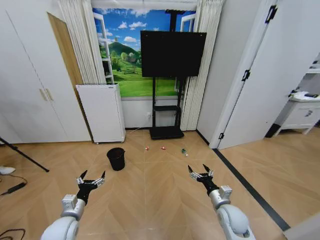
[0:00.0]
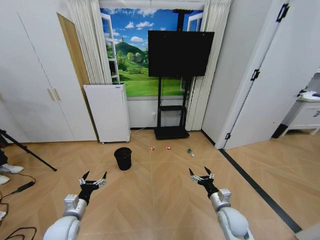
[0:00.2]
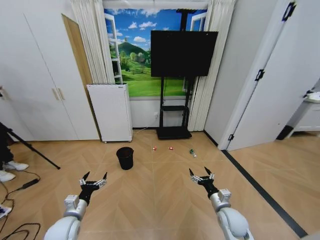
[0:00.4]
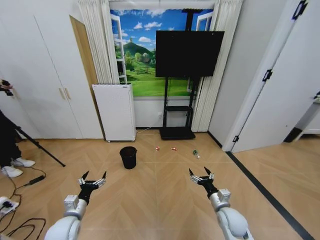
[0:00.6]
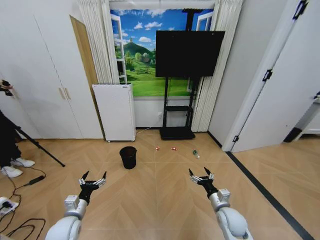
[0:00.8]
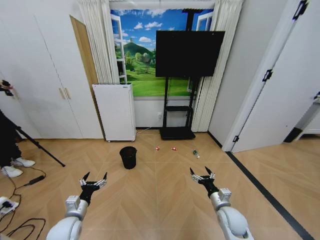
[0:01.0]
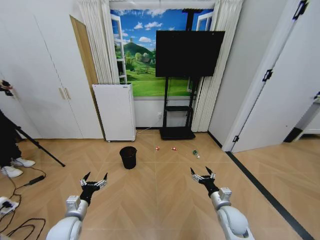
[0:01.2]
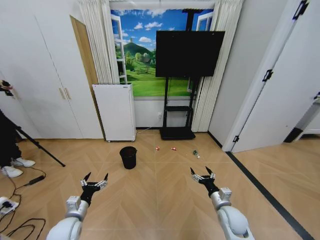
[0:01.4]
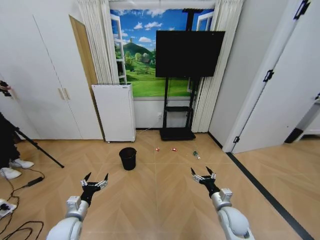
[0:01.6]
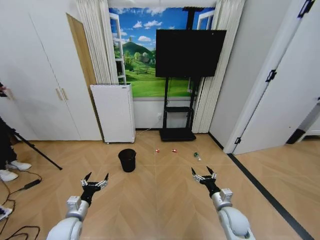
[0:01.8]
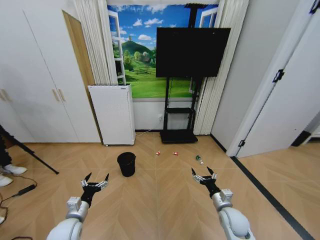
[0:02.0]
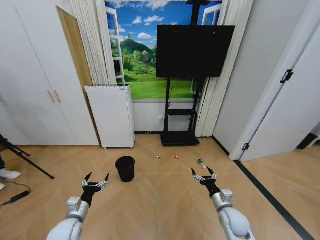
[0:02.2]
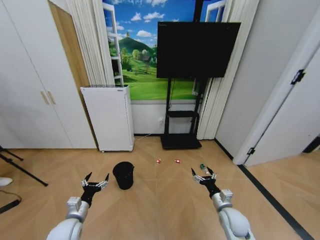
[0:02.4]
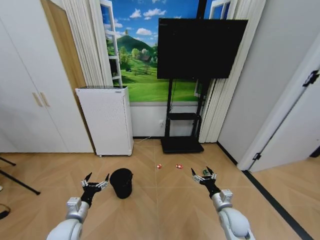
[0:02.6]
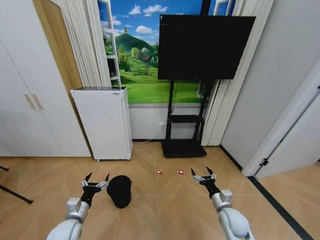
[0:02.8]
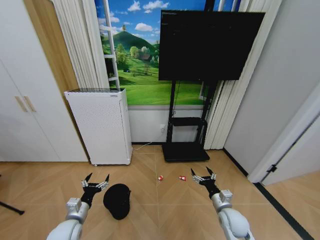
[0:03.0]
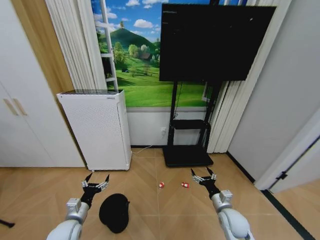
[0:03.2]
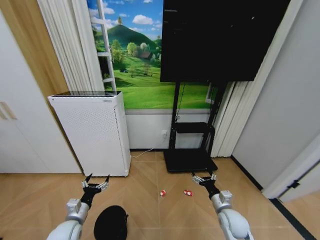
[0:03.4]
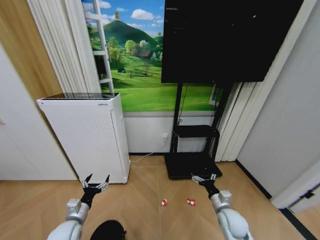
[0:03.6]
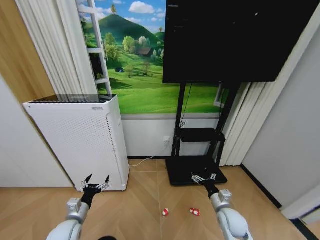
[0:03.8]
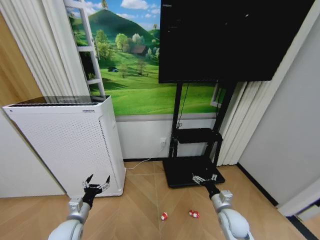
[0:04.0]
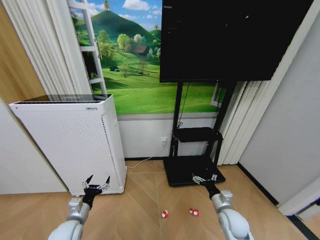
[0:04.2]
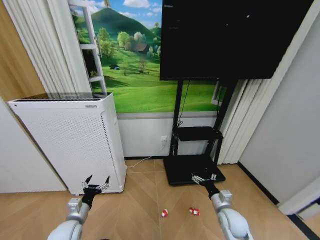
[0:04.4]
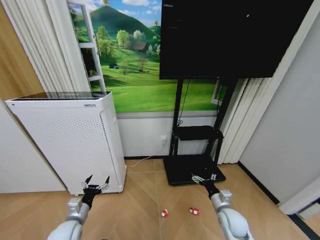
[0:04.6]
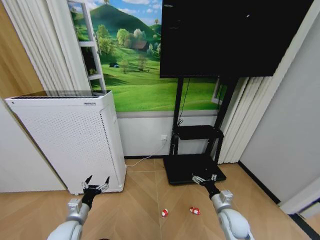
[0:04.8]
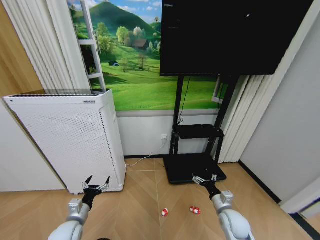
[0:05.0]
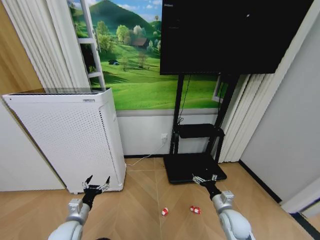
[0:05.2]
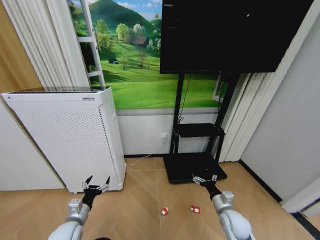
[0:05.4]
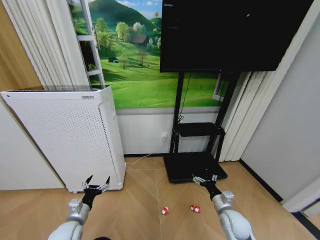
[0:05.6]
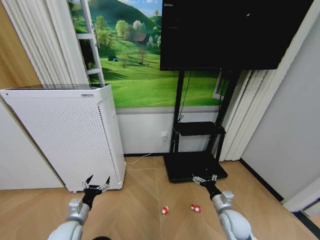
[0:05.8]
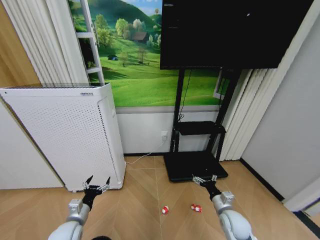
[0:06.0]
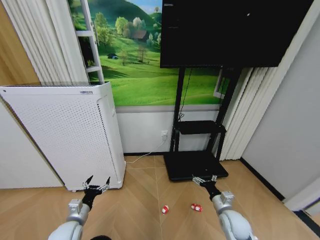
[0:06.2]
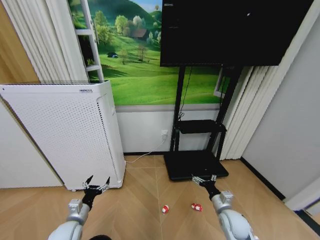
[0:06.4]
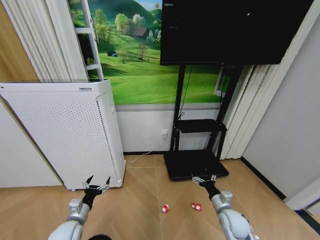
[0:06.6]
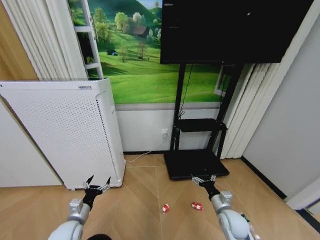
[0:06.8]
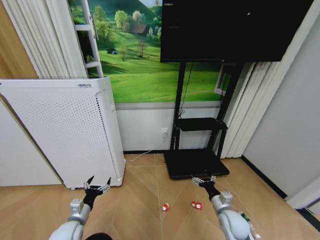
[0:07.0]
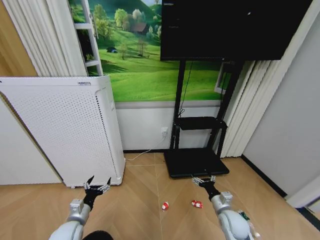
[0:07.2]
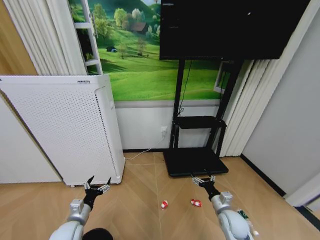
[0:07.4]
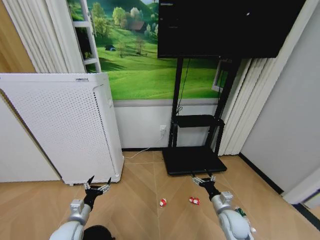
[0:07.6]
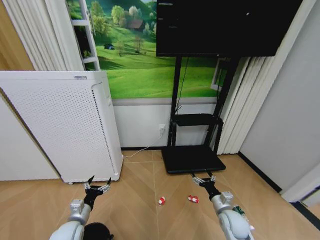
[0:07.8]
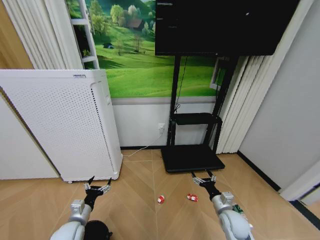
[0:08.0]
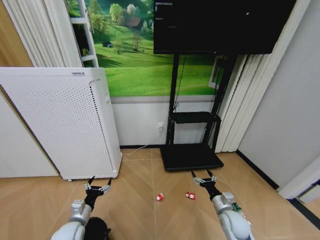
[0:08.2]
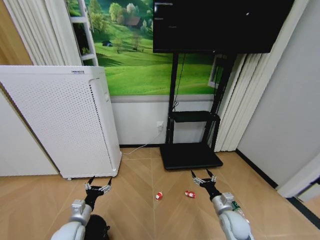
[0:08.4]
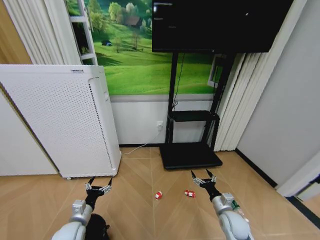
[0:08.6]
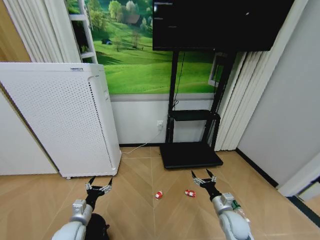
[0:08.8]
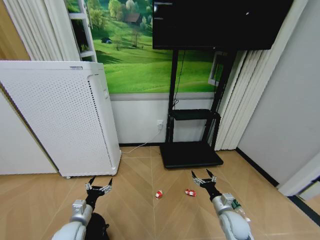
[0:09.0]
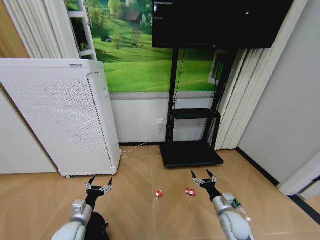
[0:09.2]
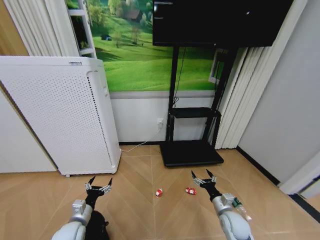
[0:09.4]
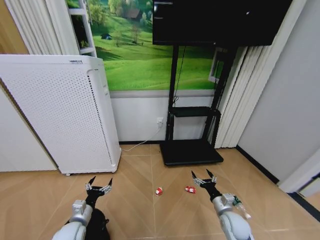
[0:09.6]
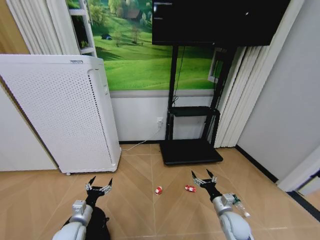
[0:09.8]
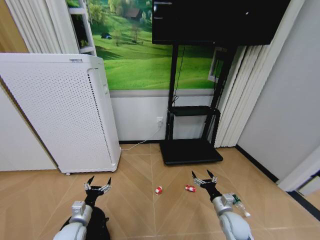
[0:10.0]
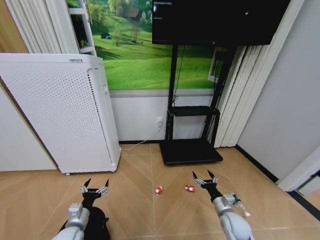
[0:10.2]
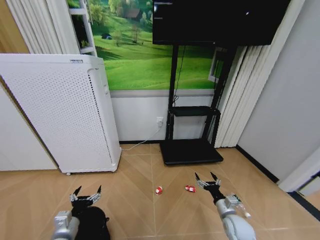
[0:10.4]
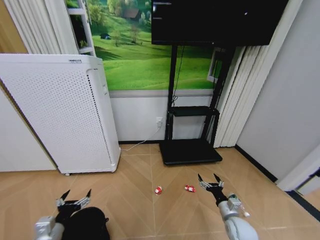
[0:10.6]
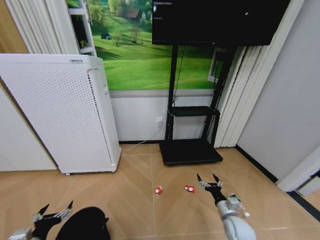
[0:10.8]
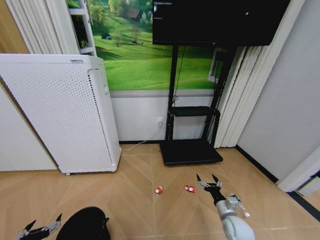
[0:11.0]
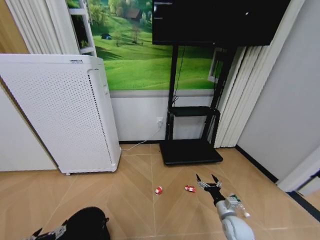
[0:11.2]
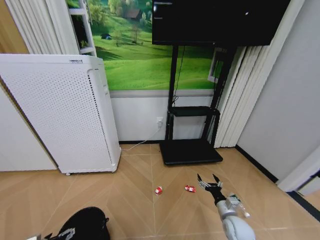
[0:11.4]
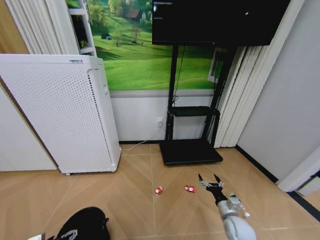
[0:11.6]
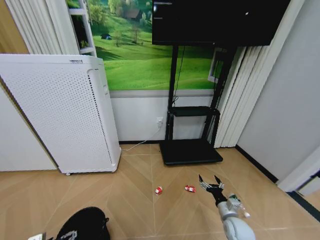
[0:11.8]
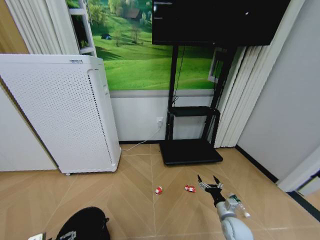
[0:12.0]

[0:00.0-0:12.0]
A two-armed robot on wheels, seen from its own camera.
Task of the whole recording: Pick up the trash bin and place the garbage on the floor into it.
0:04.4 to 0:06.0: Both grippers stay put.
0:09.0 to 0:10.4: The left gripper shifts some 5 cm backward.
0:10.4 to 0:12.0: The left gripper moves to the left, approximately 5 cm.

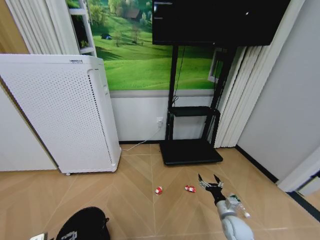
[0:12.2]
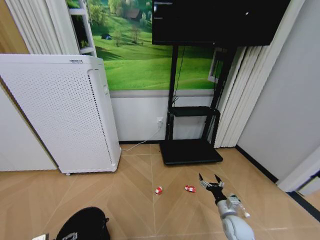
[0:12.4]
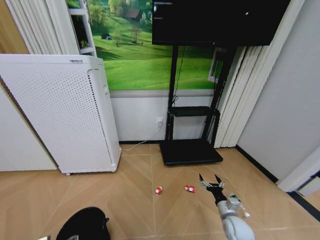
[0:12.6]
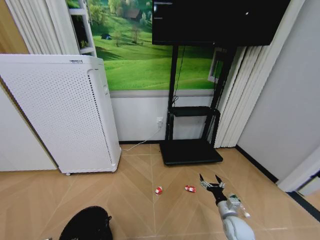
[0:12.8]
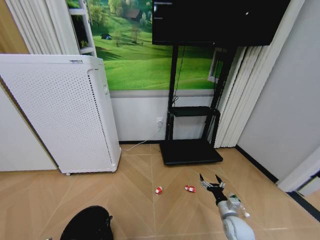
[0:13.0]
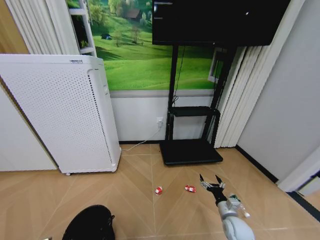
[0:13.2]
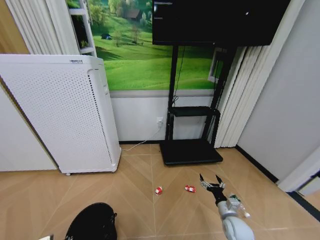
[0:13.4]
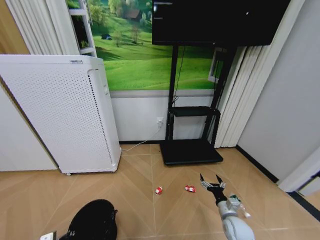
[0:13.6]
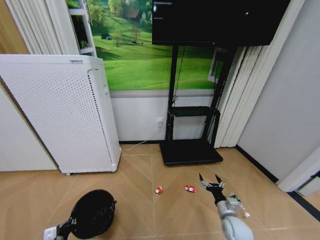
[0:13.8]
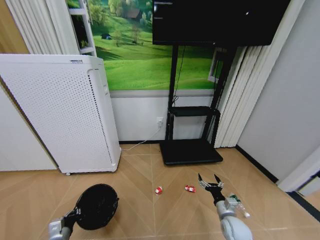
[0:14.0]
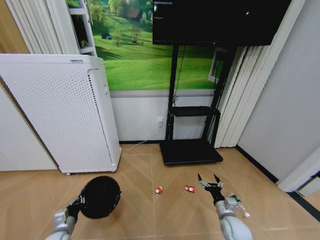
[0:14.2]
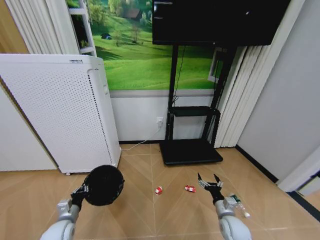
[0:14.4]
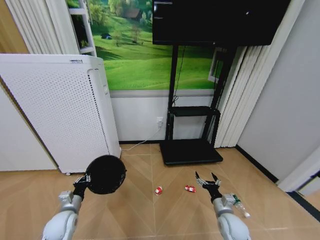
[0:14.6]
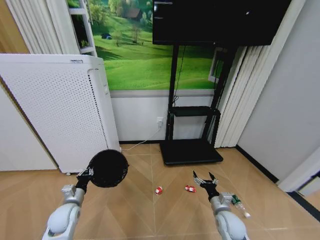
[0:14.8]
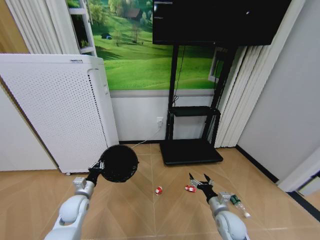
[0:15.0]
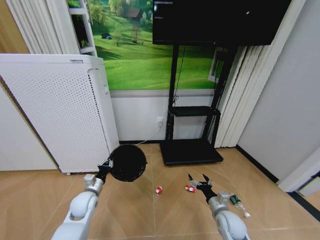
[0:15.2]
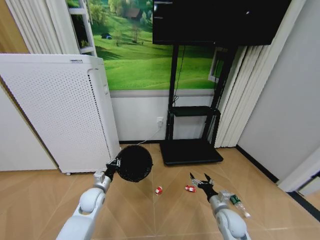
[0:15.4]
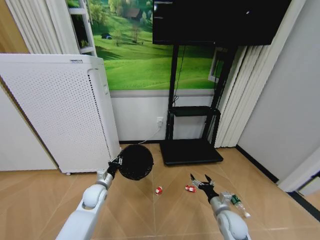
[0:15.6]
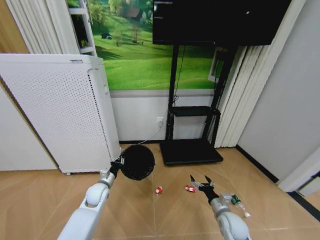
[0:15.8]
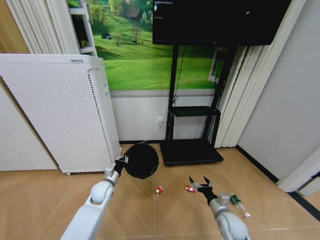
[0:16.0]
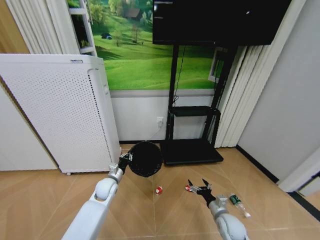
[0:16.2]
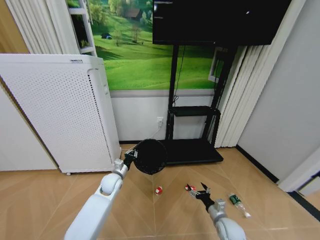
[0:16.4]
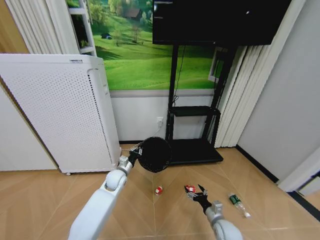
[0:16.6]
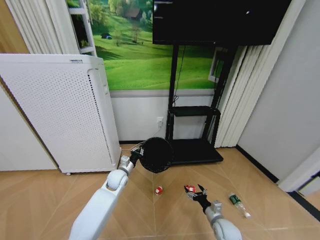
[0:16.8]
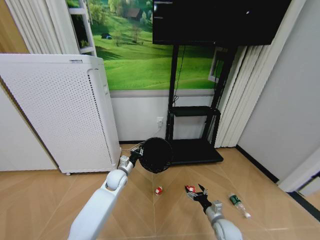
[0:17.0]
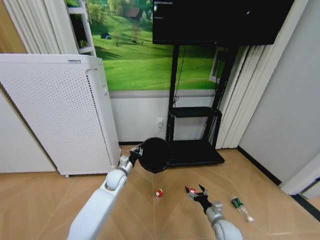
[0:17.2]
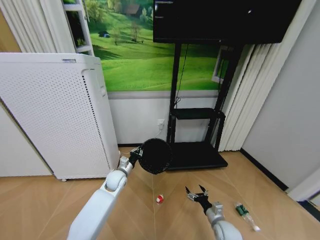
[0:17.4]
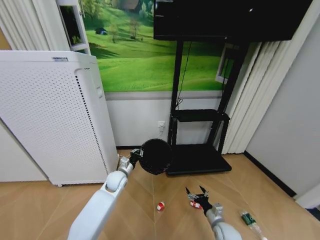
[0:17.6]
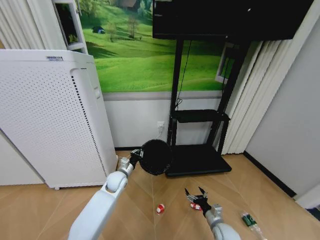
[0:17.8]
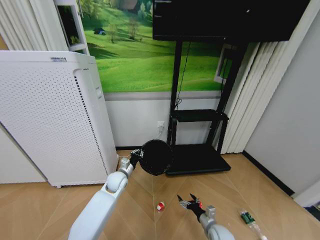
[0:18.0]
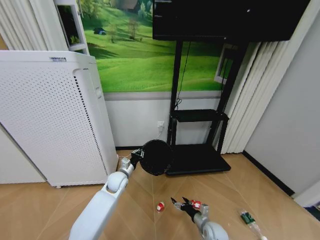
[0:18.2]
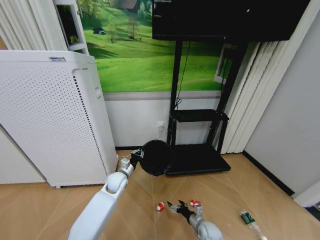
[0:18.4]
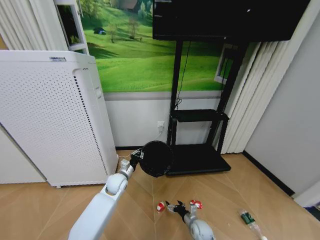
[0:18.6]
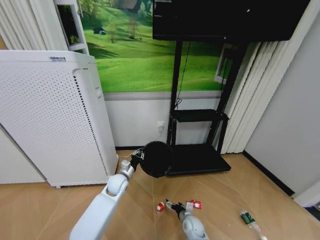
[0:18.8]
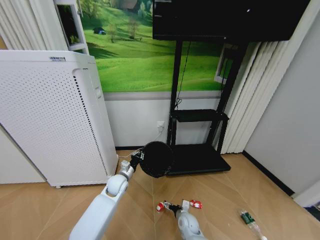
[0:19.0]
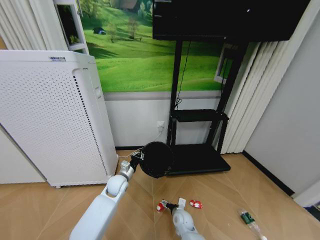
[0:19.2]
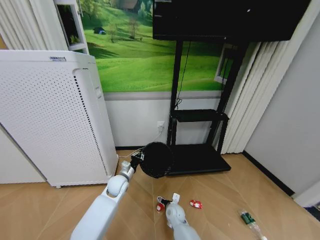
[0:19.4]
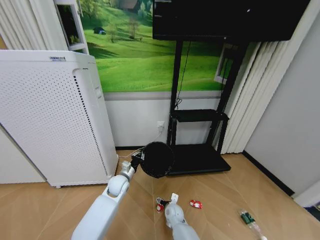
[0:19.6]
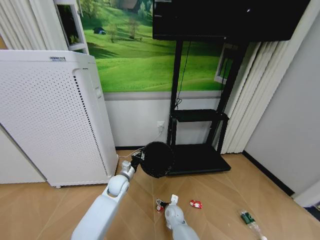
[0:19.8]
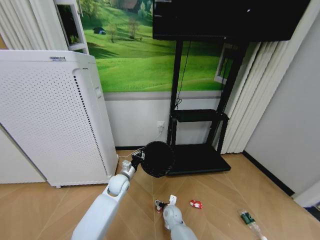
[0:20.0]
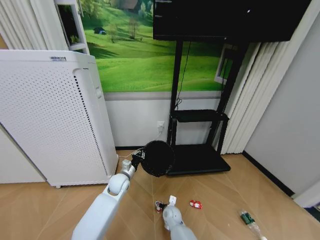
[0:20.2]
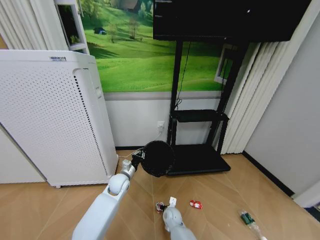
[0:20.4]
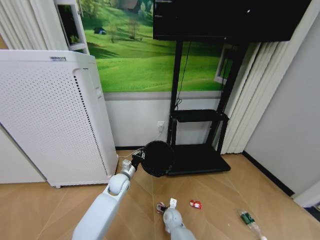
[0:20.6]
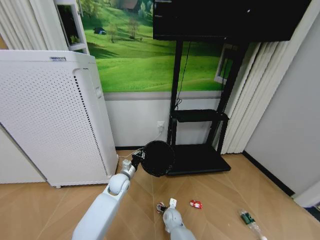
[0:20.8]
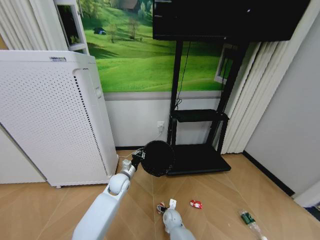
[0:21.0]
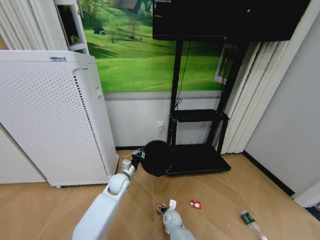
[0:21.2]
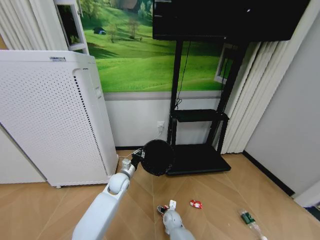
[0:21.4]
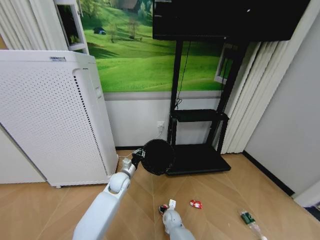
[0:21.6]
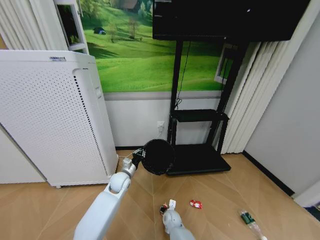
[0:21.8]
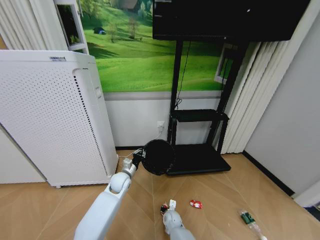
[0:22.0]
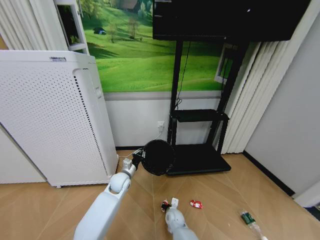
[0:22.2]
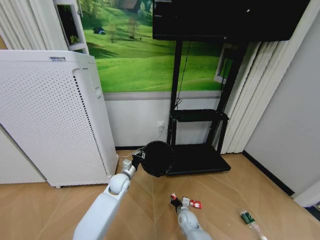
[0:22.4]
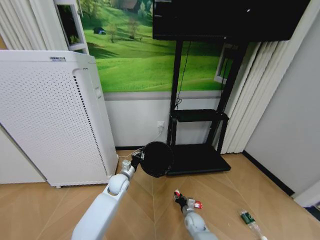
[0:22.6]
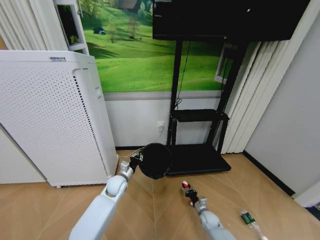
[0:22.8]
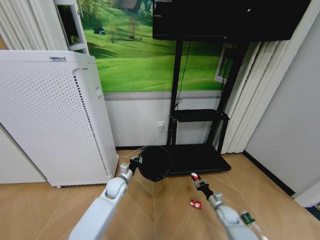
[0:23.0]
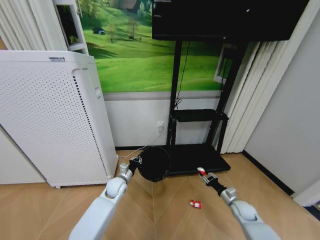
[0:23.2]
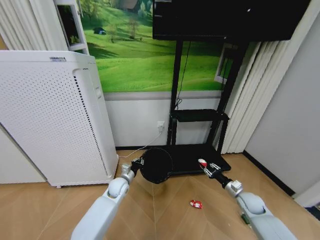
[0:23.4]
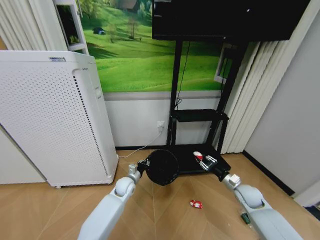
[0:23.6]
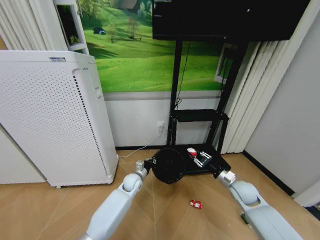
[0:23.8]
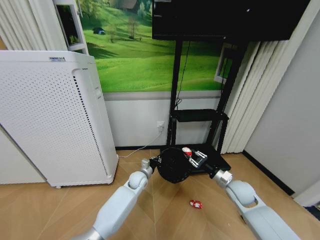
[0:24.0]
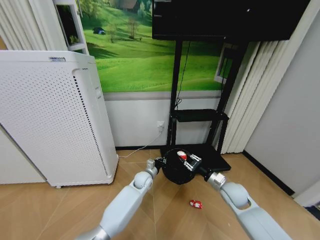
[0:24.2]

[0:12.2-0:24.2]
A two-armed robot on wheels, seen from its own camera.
Task of the whole recording: Pick up the trash bin and place the garbage on the floor into it.
0:12.2 to 0:13.8: The left gripper travels downward by approximately 5 cm, and closes its fingers.
0:13.8 to 0:15.2: The left gripper travels forward and to the right by approximately 20 cm.
0:15.2 to 0:16.6: The right gripper travels downward by some 5 cm. The left gripper is displaced to the right and forward by about 15 cm.
0:16.6 to 0:18.2: The right gripper changes place by approximately 5 cm.
0:18.2 to 0:19.8: The right gripper is displaced to the left and forward by about 20 cm.
0:19.8 to 0:21.2: The grippers move only a little.
0:21.2 to 0:22.6: The right gripper goes roughly 10 cm to the right, and closes up.
0:22.6 to 0:24.2: The right gripper travels upward and to the right by approximately 30 cm; the left gripper moves to the right, roughly 10 cm.
